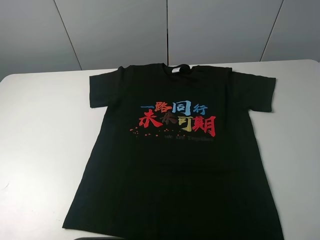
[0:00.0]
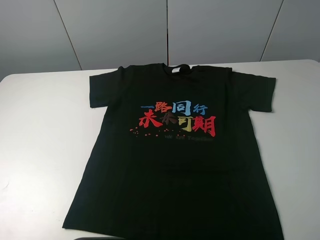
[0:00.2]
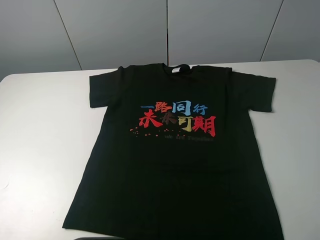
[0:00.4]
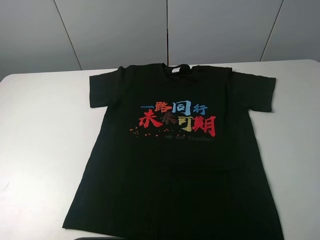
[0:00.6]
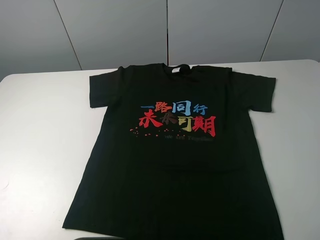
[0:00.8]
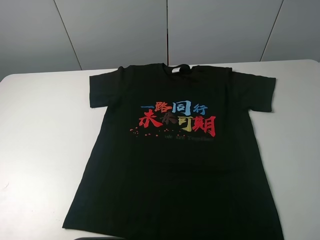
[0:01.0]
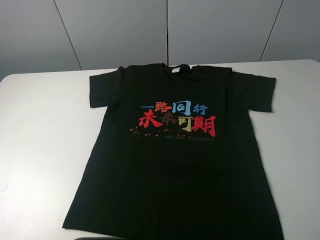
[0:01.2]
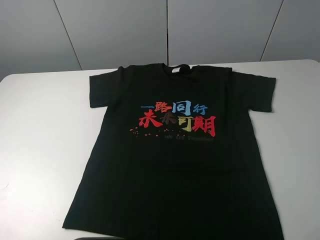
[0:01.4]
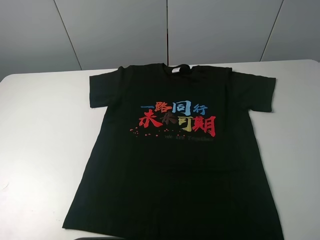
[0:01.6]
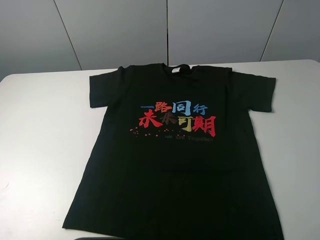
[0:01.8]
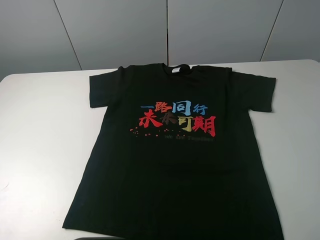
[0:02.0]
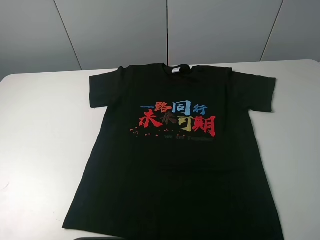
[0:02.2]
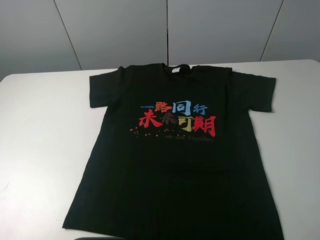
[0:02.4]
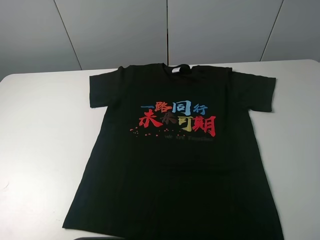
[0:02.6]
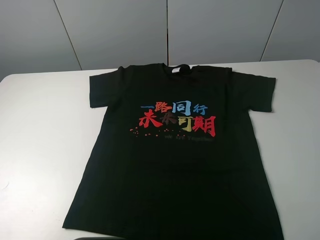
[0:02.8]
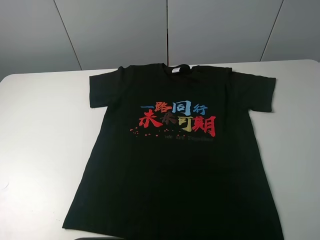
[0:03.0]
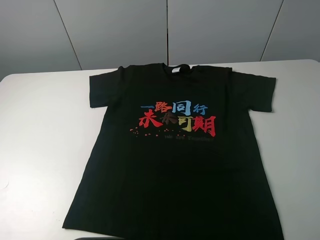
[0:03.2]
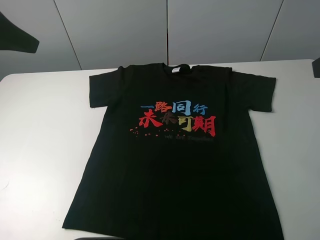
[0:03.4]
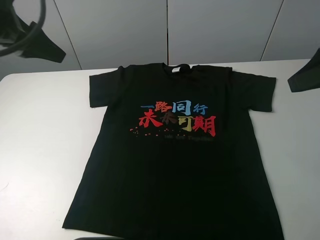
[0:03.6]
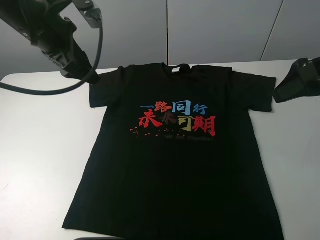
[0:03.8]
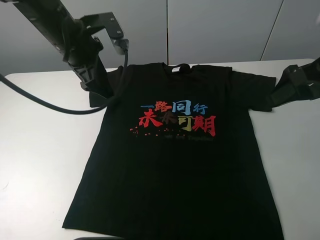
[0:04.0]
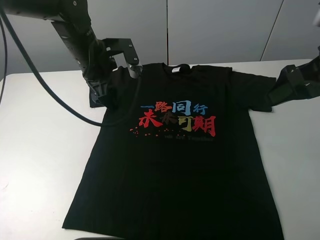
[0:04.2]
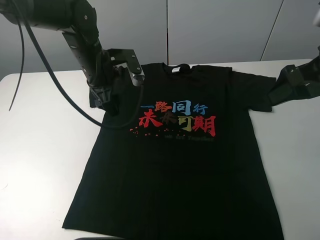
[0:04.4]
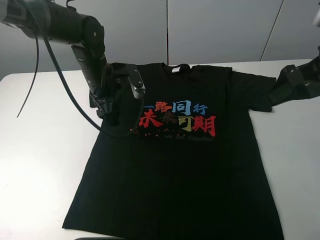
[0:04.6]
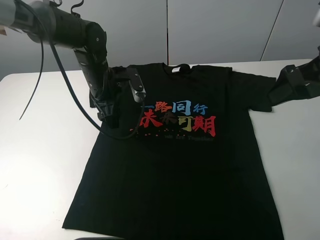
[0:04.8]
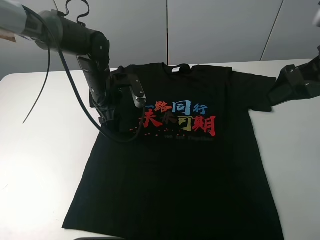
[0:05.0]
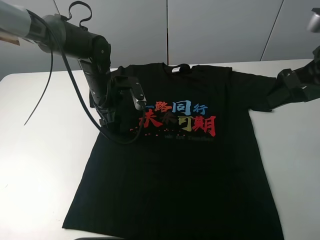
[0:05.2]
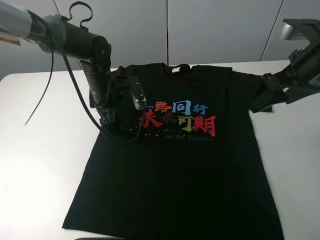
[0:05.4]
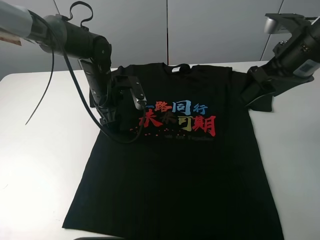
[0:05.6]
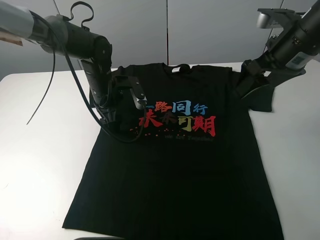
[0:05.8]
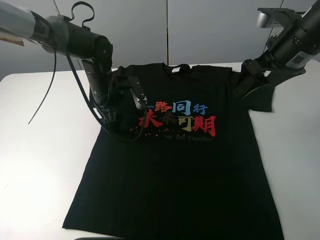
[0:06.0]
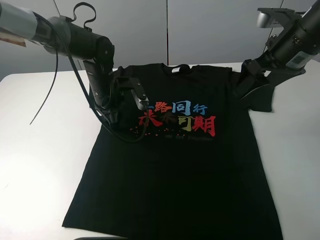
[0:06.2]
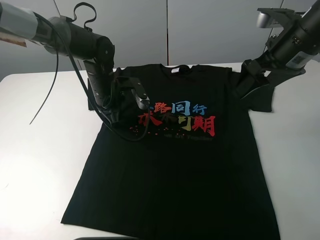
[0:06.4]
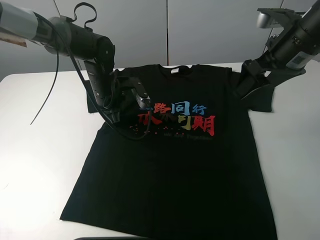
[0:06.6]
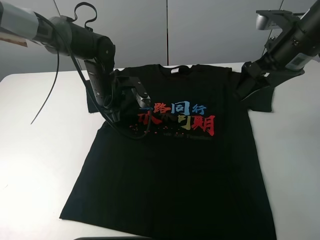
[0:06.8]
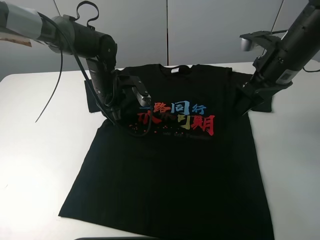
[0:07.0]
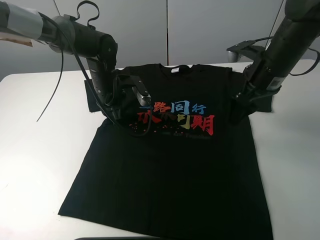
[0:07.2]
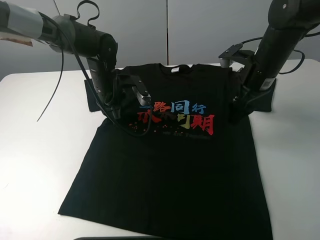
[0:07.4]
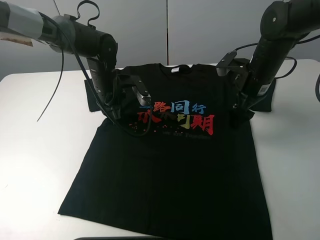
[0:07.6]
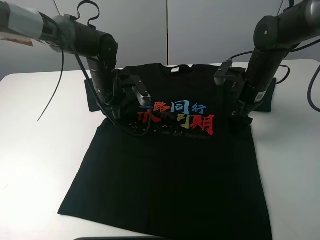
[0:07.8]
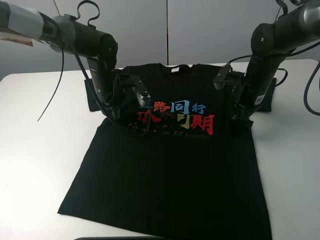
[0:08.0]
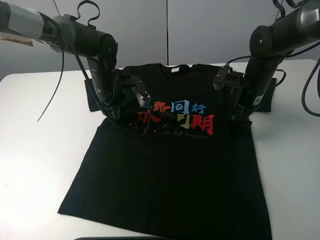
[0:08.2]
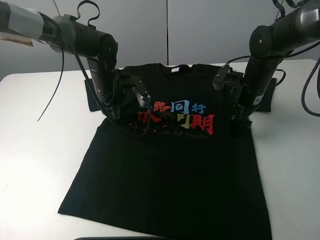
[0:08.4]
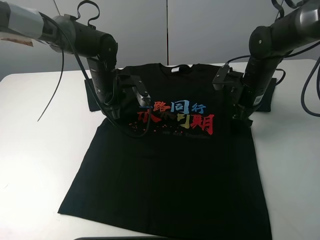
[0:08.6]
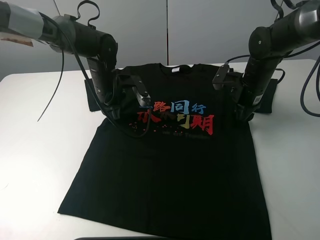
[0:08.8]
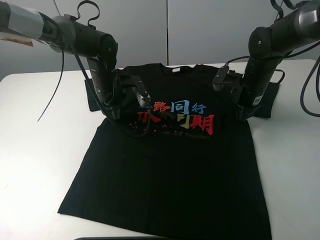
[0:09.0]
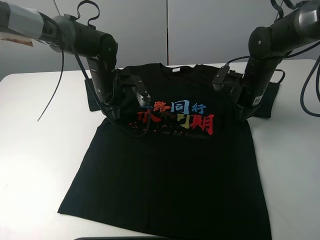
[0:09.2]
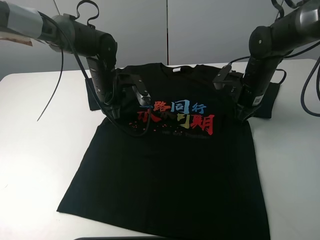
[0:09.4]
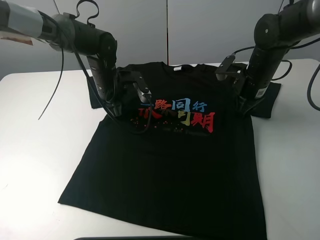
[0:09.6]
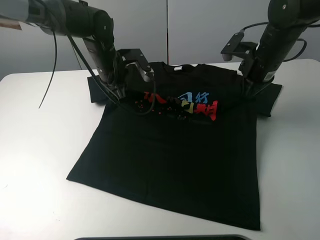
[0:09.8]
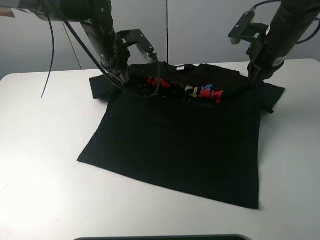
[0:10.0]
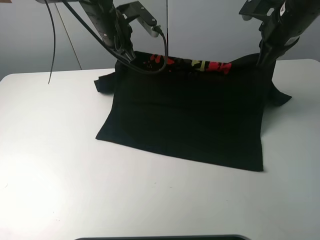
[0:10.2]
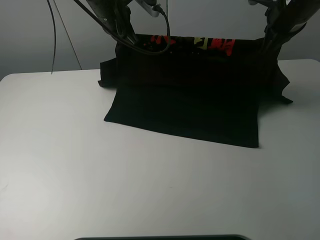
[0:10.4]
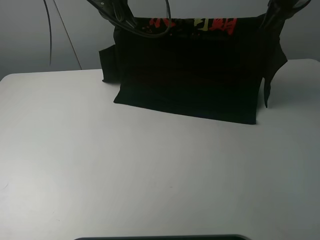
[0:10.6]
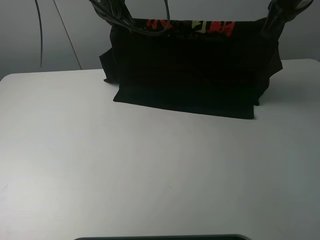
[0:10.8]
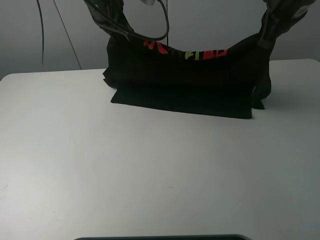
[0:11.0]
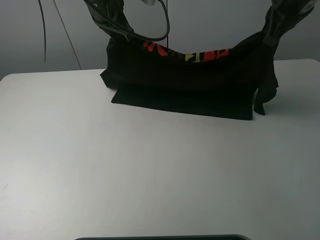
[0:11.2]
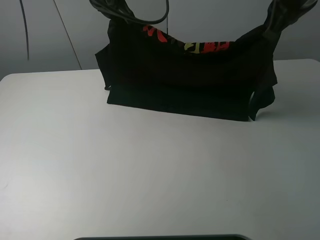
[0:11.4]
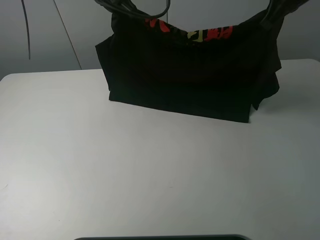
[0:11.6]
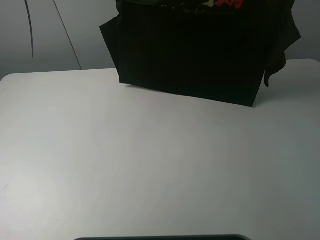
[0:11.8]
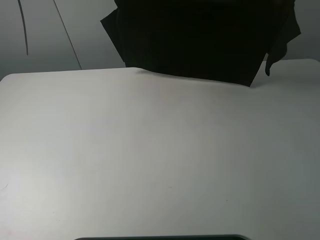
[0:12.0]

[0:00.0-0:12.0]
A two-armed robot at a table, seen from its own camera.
Task of the whole recording: fold the clothes on the table.
Step, 0.0 to 8.4 s: Lift the black T-shirt with the left gripper.
0.0 to 1.6 s: The two grippers keep their place.
3.0 to 4.4 s: The right gripper shifts about 20 cm forward and downward; the left gripper heads forward, to the right and downward, covering roughly 35 cm.
4.4 to 6.0 s: The right gripper heads forward, covering roughly 5 cm. Meanwhile the left gripper travels downward by approximately 5 cm.
6.0 to 7.6 s: The left gripper closes. The right gripper heads downward and forward, covering roughly 10 cm.
7.6 to 9.0 s: The right gripper closes.
9.0 to 10.4 s: The grippers both shift upward by approximately 15 cm.
10.4 to 12.0 s: The two grippers go some 10 cm upward.

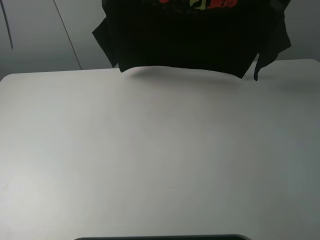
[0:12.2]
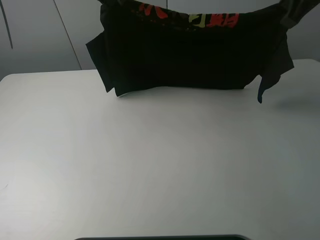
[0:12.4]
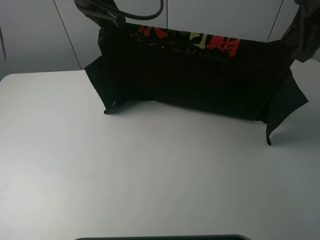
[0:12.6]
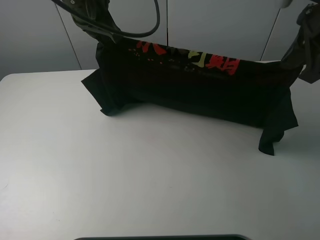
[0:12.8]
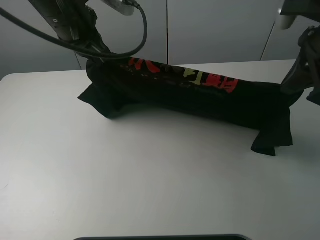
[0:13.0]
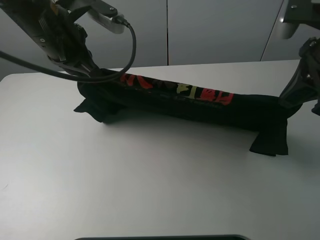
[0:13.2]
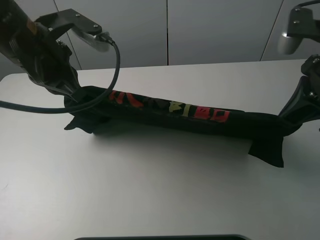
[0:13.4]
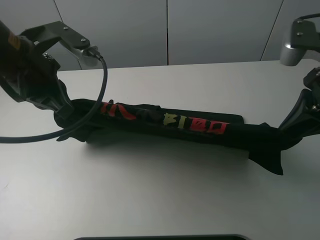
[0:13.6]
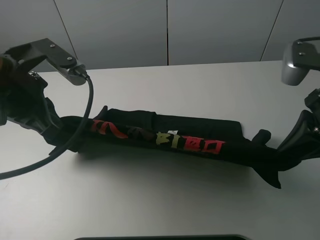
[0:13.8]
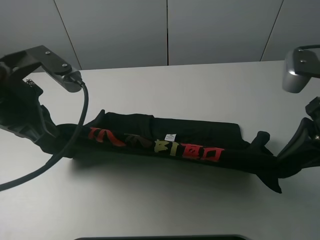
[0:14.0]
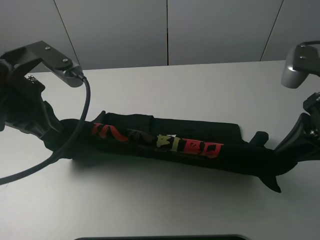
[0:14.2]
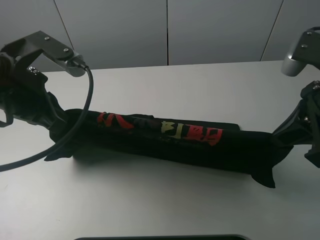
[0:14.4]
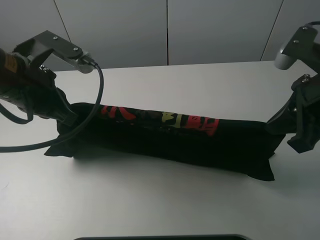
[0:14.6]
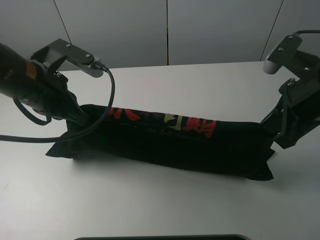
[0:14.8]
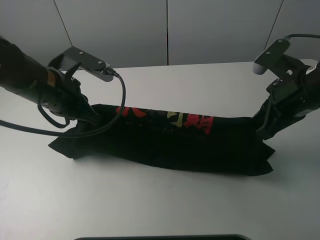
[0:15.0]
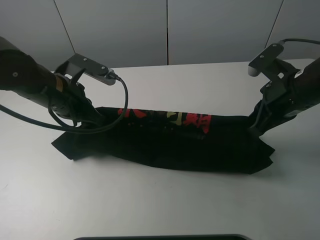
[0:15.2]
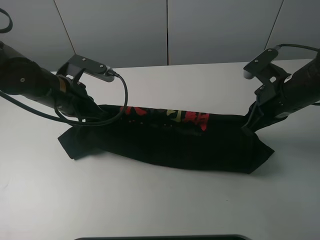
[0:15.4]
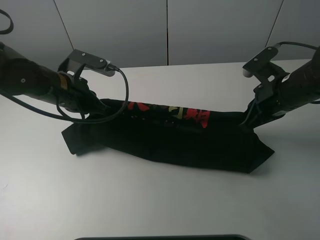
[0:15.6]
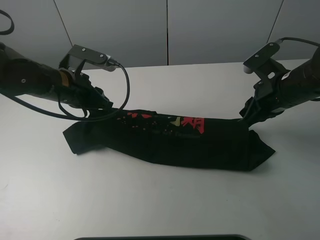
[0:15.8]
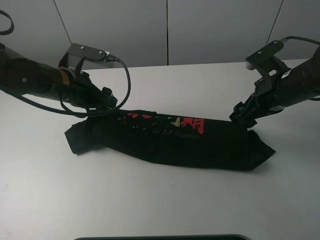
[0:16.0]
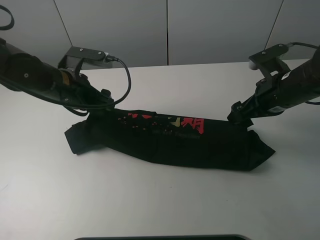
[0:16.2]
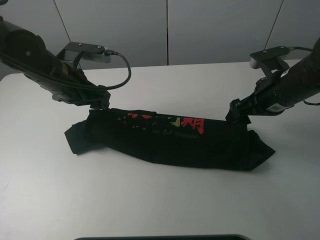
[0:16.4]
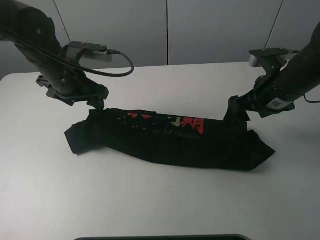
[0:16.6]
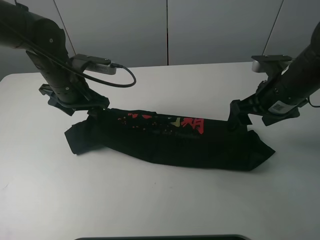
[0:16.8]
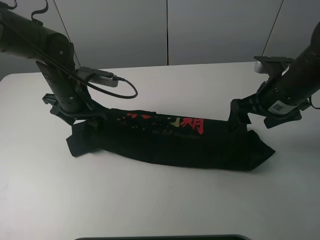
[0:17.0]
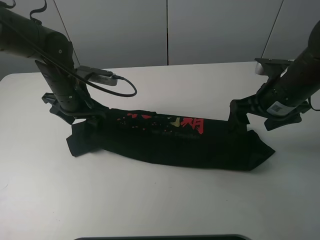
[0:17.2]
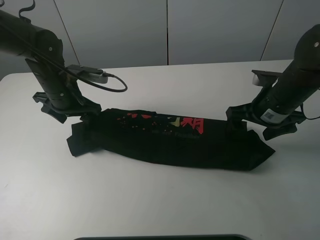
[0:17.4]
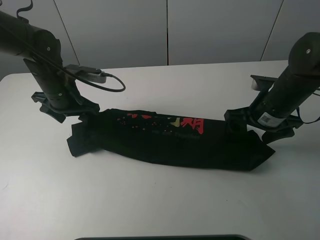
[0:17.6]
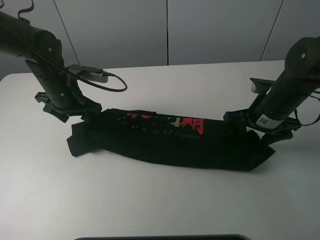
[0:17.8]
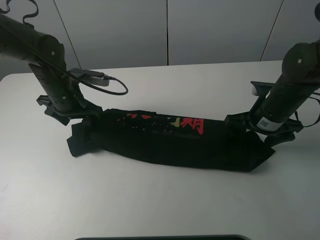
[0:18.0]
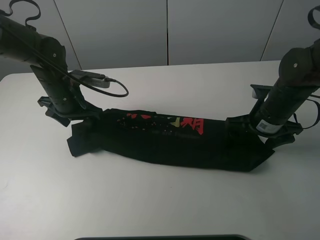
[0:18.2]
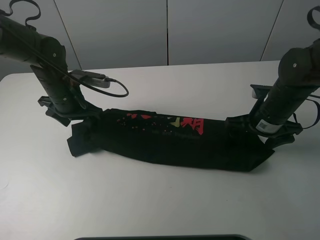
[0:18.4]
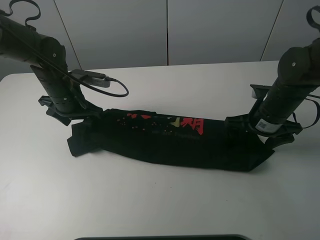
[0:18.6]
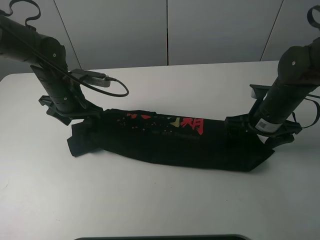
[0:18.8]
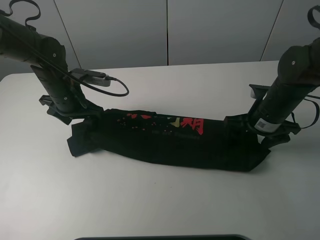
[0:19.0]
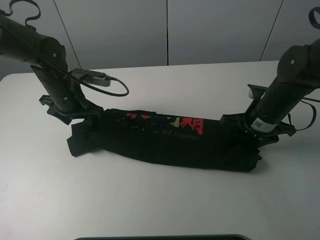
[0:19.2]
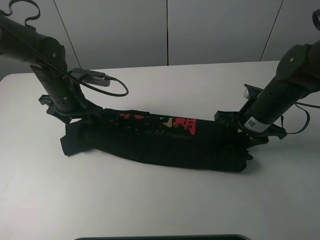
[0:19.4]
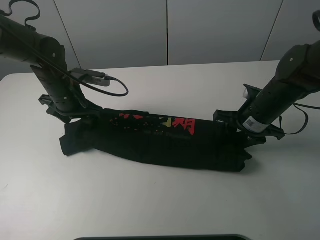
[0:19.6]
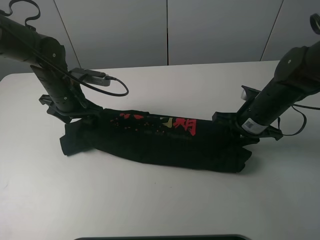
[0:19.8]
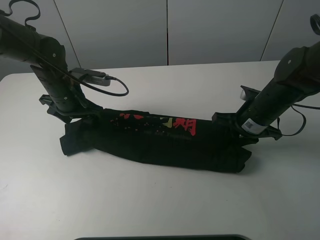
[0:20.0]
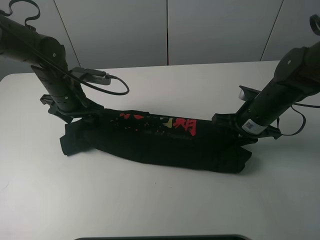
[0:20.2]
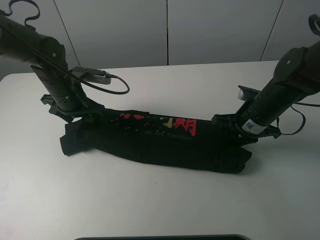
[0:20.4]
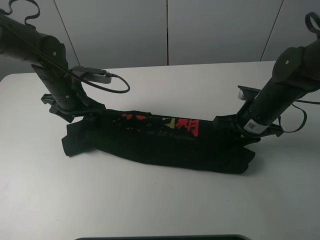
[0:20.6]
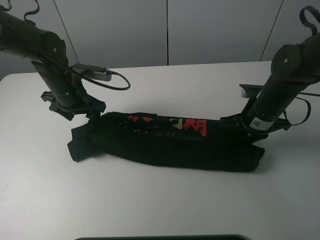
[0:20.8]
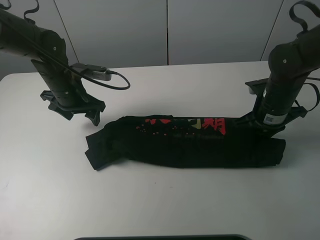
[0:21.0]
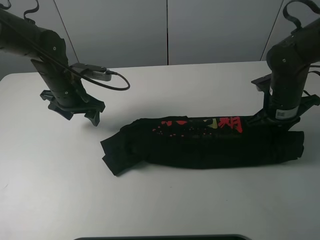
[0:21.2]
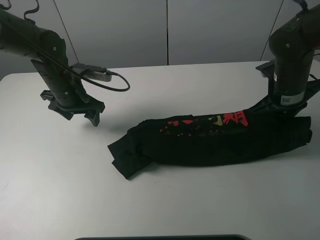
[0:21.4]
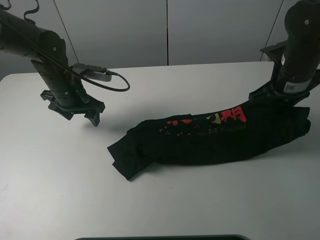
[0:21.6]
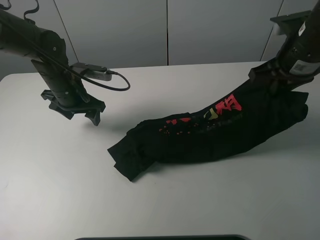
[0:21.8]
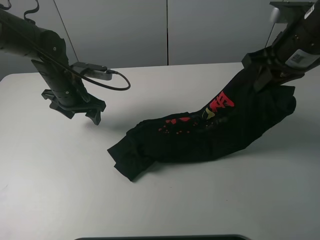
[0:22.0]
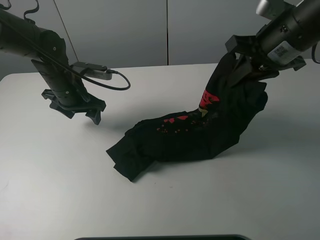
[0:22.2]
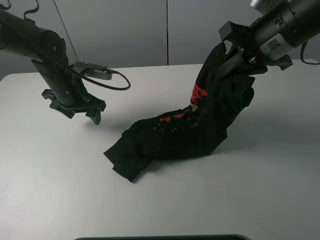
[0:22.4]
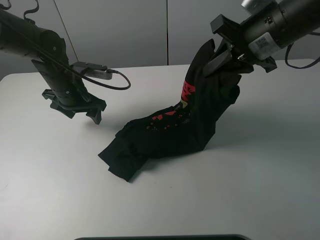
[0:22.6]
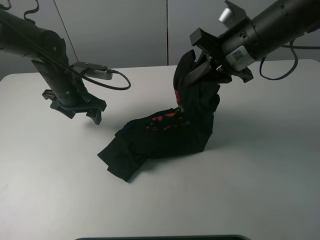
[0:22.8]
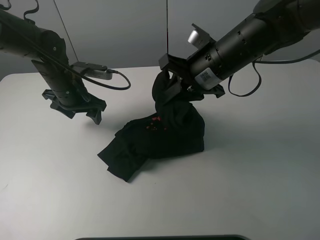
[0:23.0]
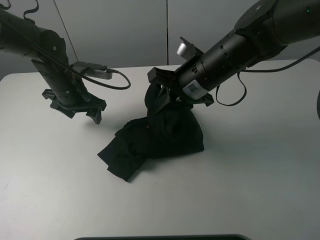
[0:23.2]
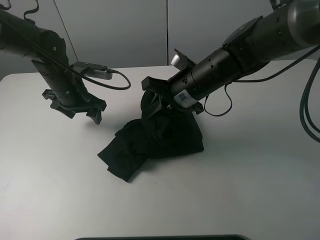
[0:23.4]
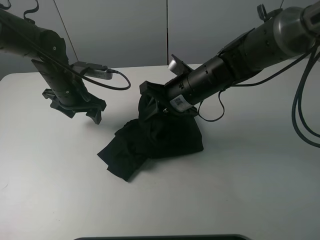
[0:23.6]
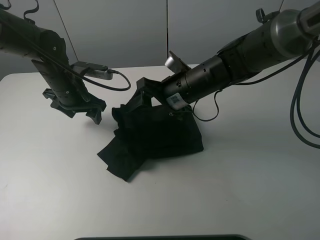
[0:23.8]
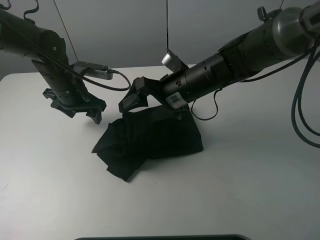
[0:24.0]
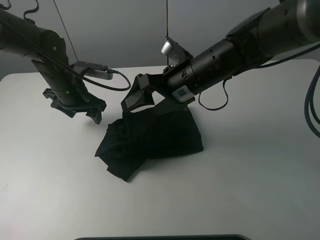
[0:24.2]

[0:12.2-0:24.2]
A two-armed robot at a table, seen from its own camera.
Task of the whole recording: fold the clothes on the table.
Step, 12.2 to 16.0 s: Fold the black T-shirt downward with the left gripper.
Step, 16.4 to 19.4 s: Grasp the black T-shirt with the right gripper.
12.2 to 13.8 s: The left gripper shifts roughly 25 cm backward, to the left and downward. Meanwhile the right gripper goes about 20 cm backward and downward.
13.8 to 15.2 s: The left gripper moves downward and forward, some 10 cm; the right gripper heads forward and downward, covering approximately 10 cm.
15.2 to 16.6 s: The right gripper opens up, while the left gripper shifts by approximately 5 cm, and opens up.
16.6 to 18.2 s: Both grippers move downward, some 5 cm.
18.2 to 19.8 s: The right gripper closes its fingers.
19.8 to 21.2 s: The right gripper moves roughly 5 cm.
21.2 to 22.6 s: The right gripper heads upward and to the left, covering approximately 15 cm.
22.6 to 24.2 s: The right gripper moves to the left and downward, approximately 10 cm, and opens up.
